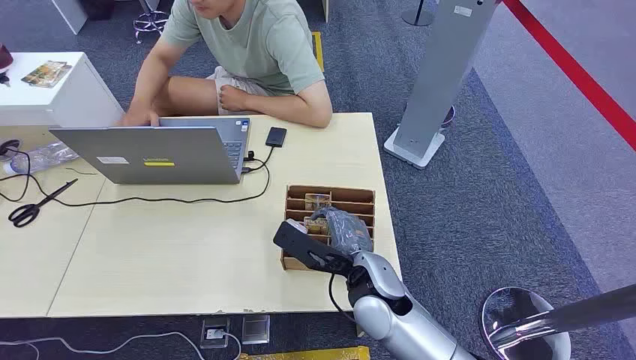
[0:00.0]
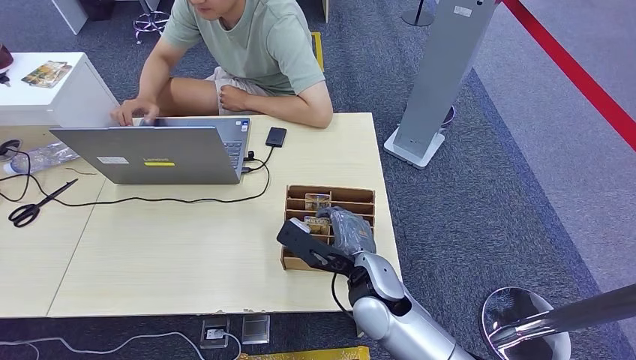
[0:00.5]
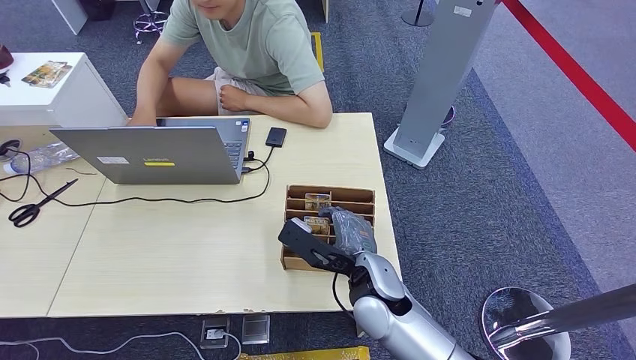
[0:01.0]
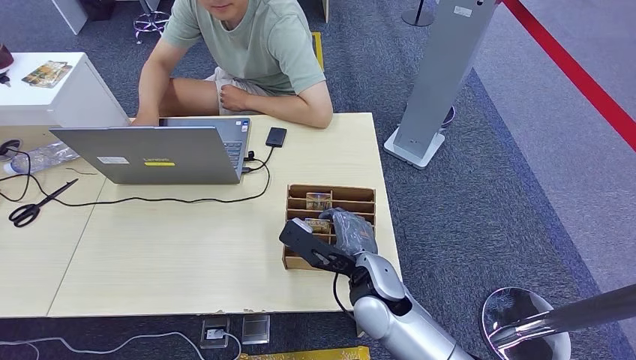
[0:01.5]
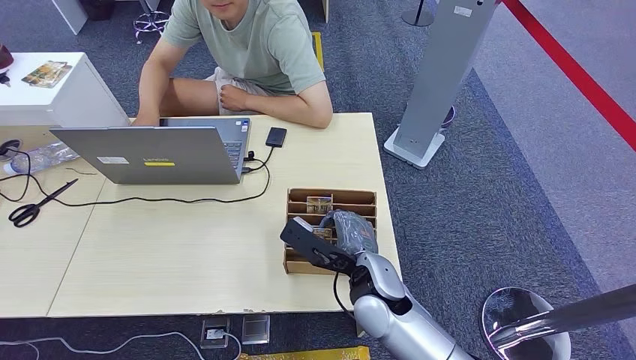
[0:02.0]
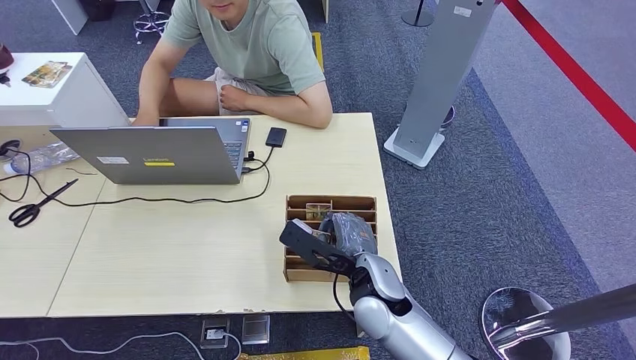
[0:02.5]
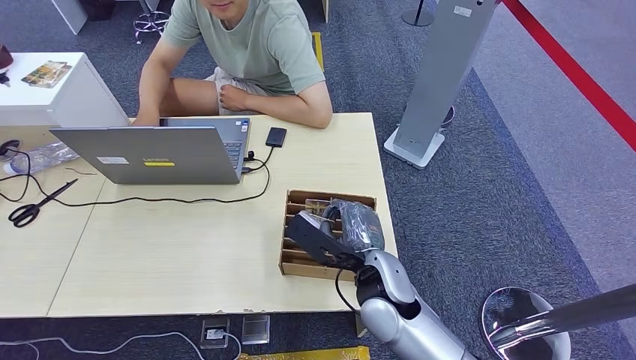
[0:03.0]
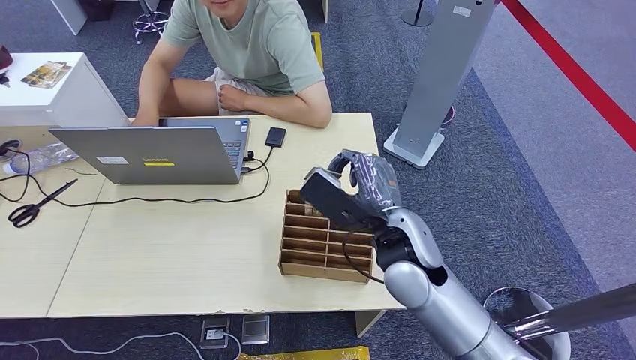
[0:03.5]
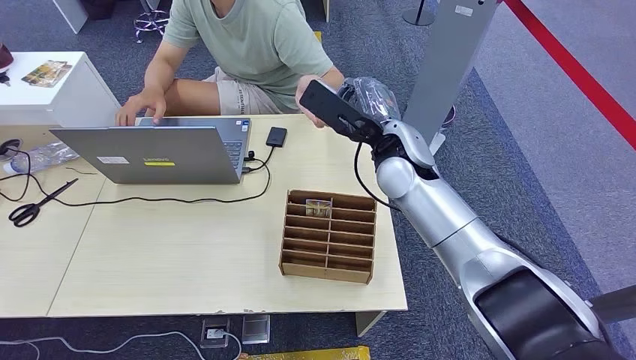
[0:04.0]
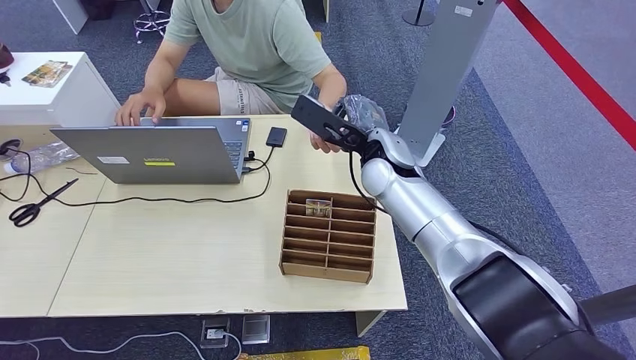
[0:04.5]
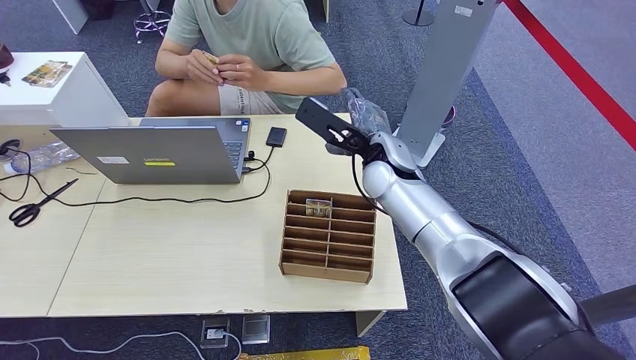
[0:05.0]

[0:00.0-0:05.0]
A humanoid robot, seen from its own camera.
Step, 0:00.0 to 0:03.0: Pick up the key card from the card box.
Step, 0:04.0 to 0:05.0: Hand the key card to the target.
0:02.5 to 0:05.0: The right hand goes about 20 cm forward and upward.
